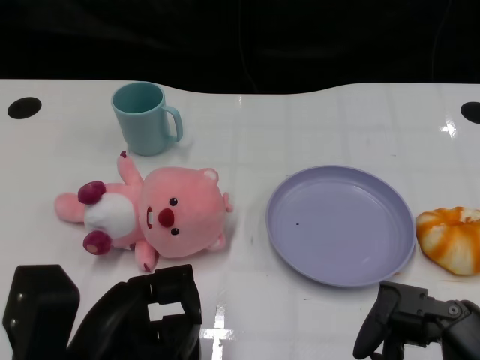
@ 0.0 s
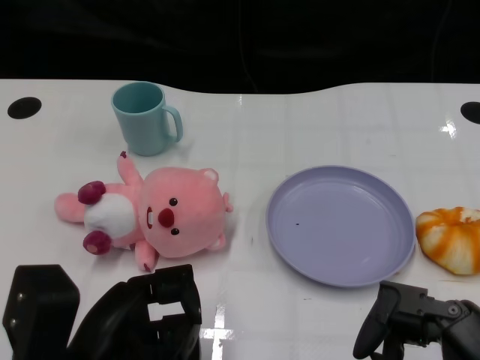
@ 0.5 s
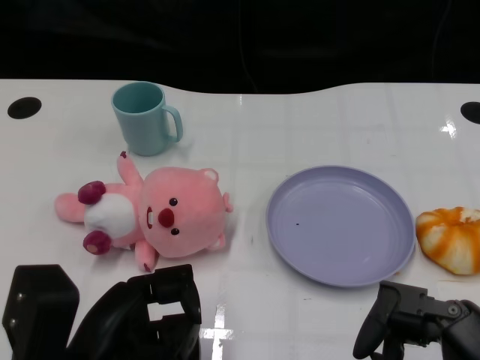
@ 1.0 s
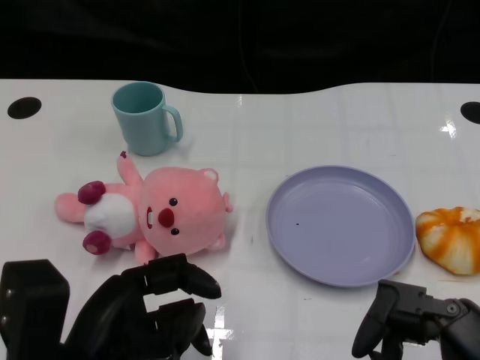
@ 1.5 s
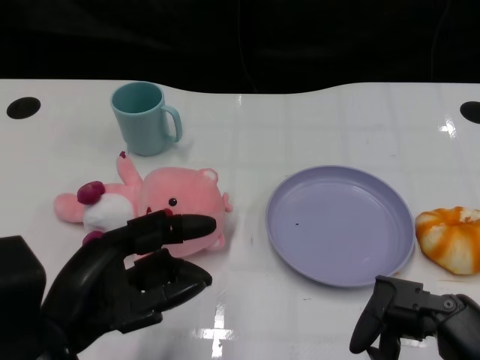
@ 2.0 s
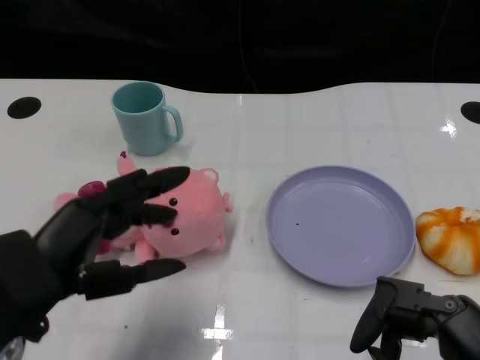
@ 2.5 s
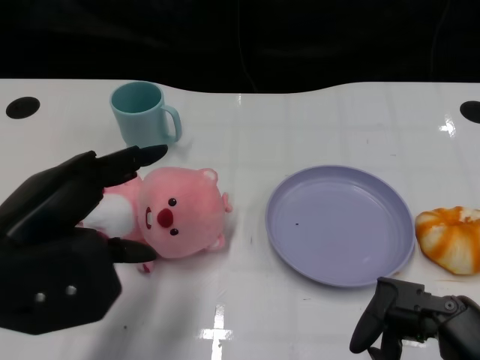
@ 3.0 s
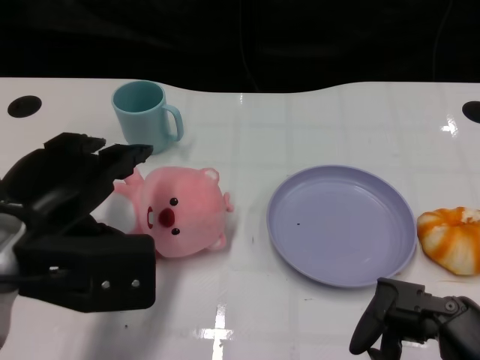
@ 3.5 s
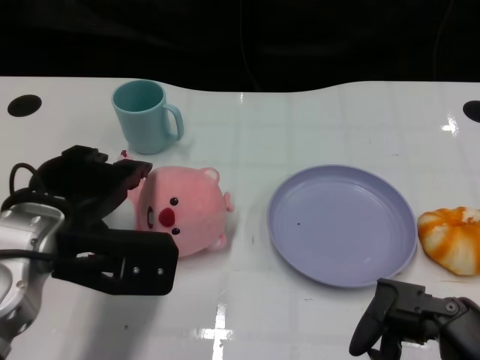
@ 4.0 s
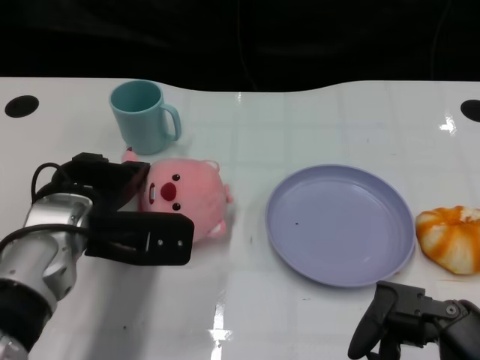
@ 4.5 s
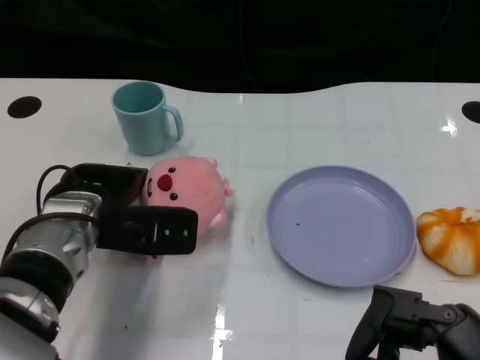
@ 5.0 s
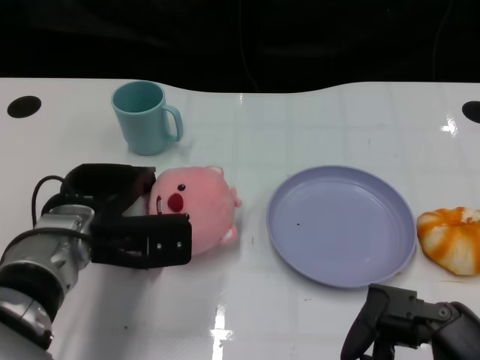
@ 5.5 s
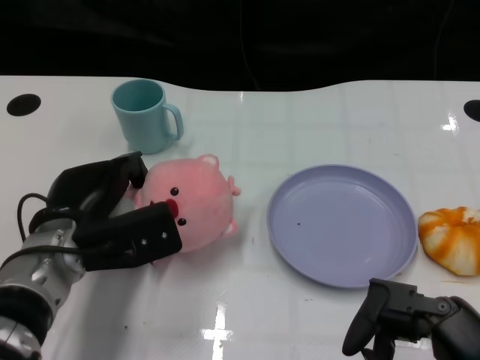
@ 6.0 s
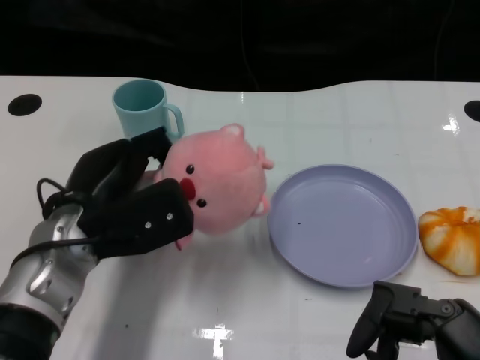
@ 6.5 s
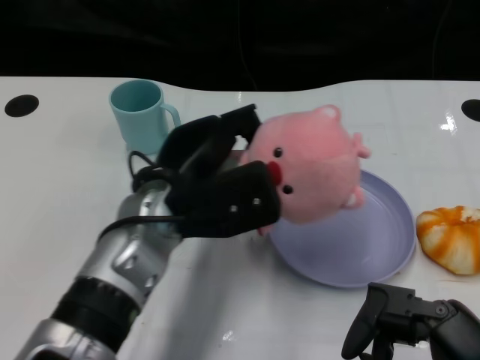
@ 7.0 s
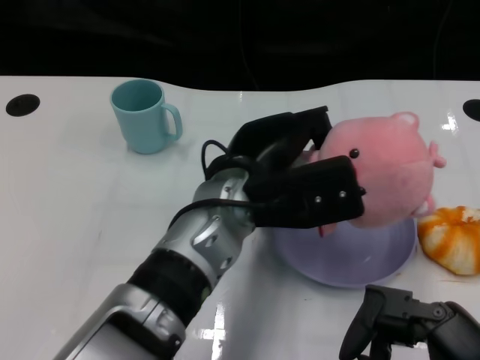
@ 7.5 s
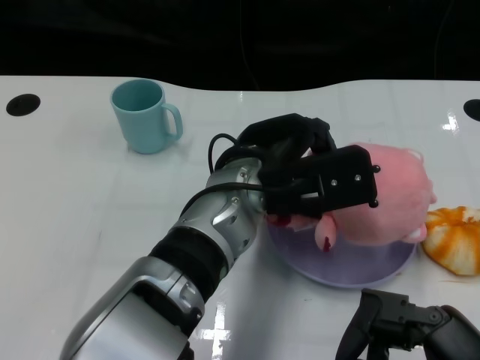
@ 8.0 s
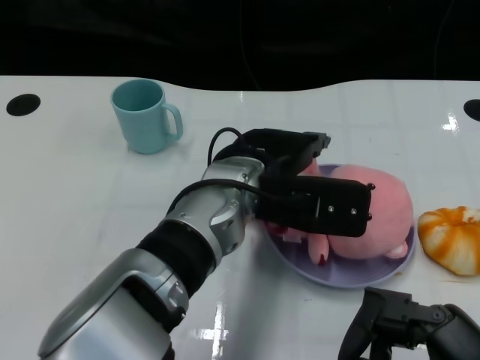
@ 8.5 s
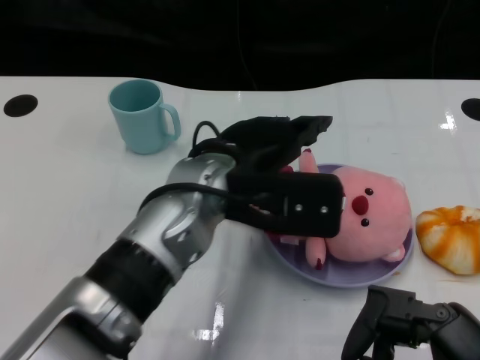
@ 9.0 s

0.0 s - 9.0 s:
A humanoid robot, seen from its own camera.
Task of the whole recording: Pick up the doll on one side of the plate and place it into the plate.
Step, 1.5 s - 5.5 s: Grasp the pink doll with the left gripper.
Step, 6.5 s - 9.0 s: Place the pink doll into the plate with the left gripper.
2.0 s - 4.5 s: The left hand moves forward, some 15 cm.
4.5 s - 7.0 s: The left hand moves to the right, approximately 10 cm.
7.0 s - 9.0 s: The left hand goes roughly 5 cm to the right.

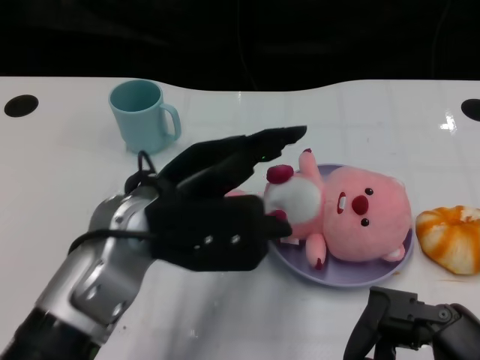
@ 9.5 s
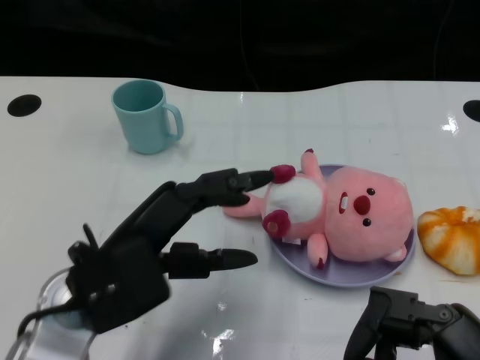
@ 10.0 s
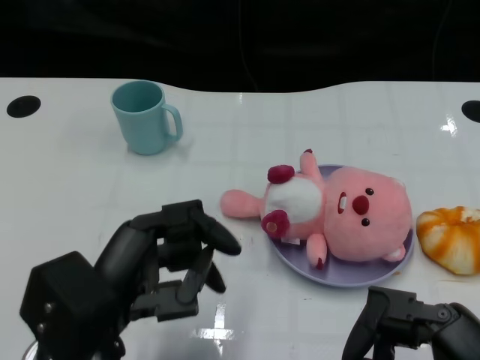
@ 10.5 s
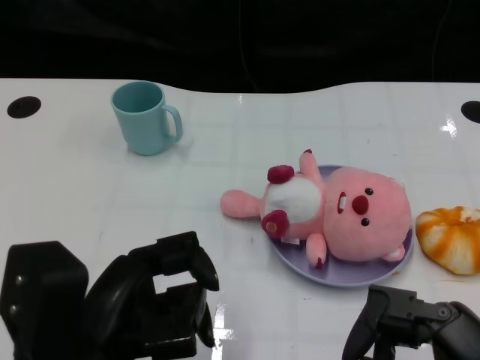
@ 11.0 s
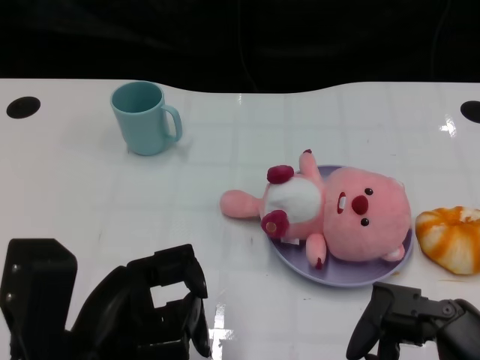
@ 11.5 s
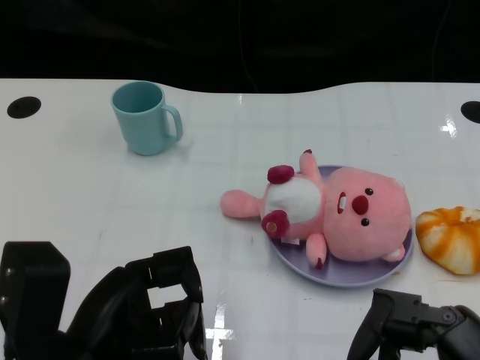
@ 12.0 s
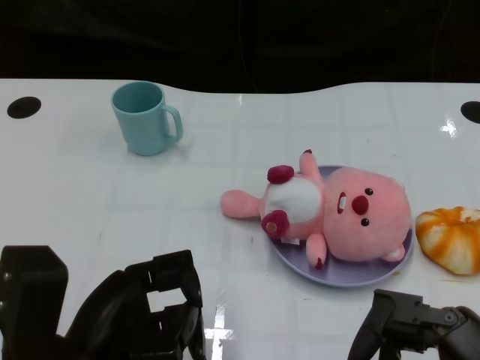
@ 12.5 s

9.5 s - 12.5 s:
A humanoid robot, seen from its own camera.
Task of the whole recording: Pick up the doll on one side of the plate and place it into the plate.
9.5 s - 11.0 s: The left hand shifts about 15 cm backward and to the left.
11.0 s - 12.5 s: The hands make only small movements.

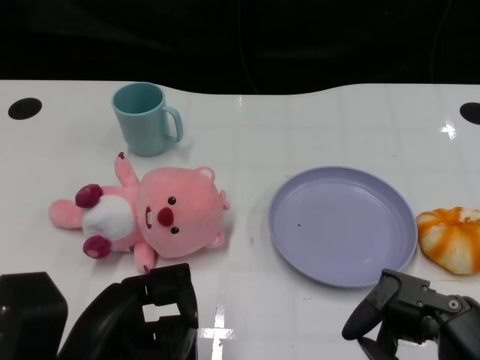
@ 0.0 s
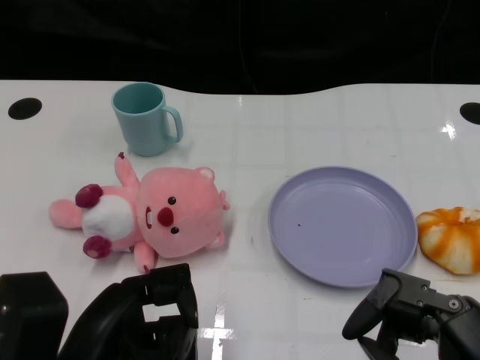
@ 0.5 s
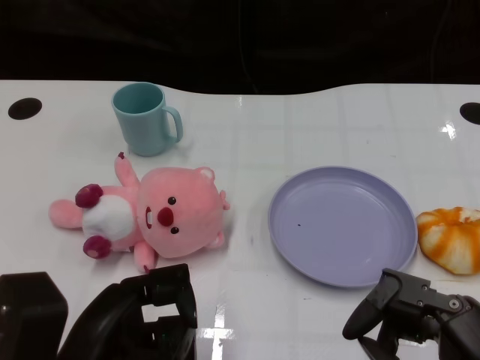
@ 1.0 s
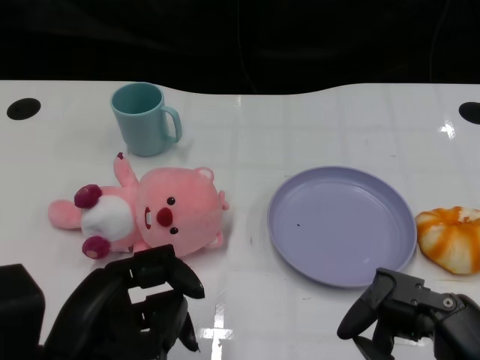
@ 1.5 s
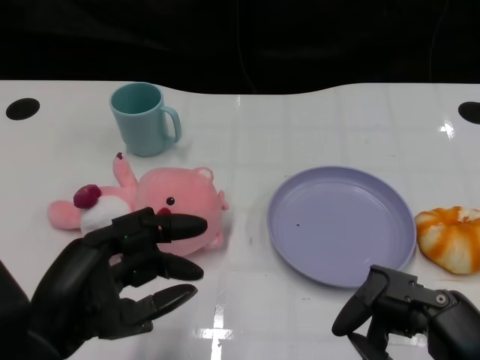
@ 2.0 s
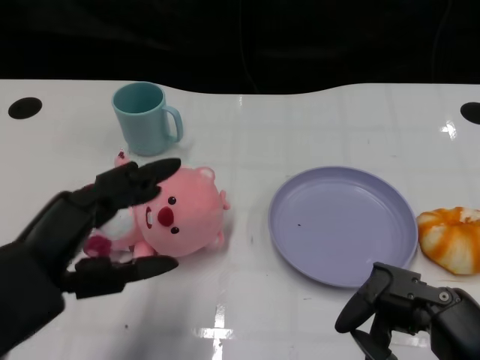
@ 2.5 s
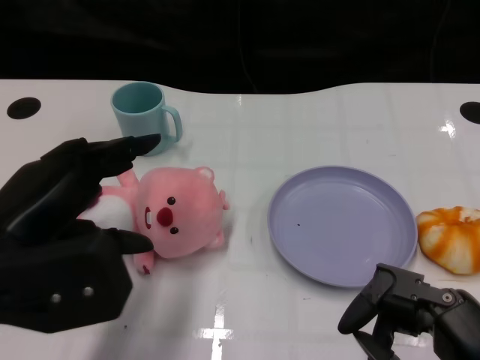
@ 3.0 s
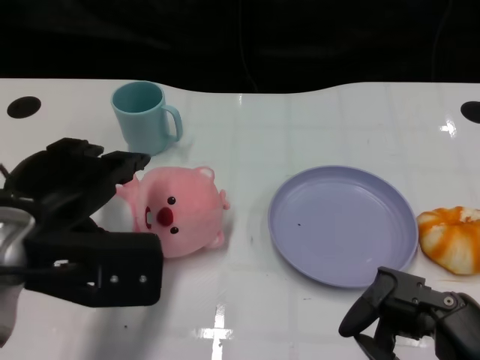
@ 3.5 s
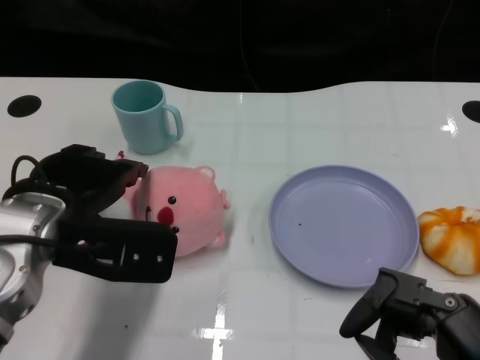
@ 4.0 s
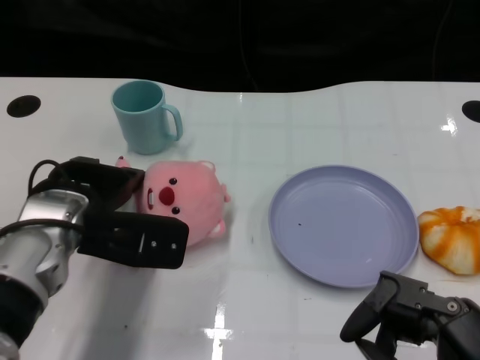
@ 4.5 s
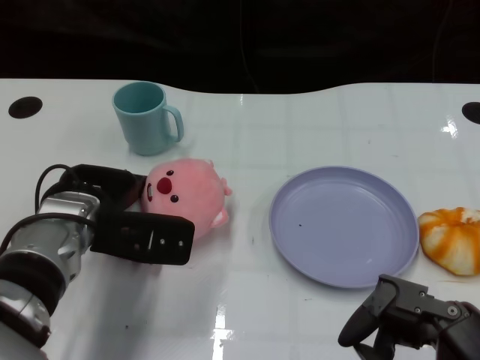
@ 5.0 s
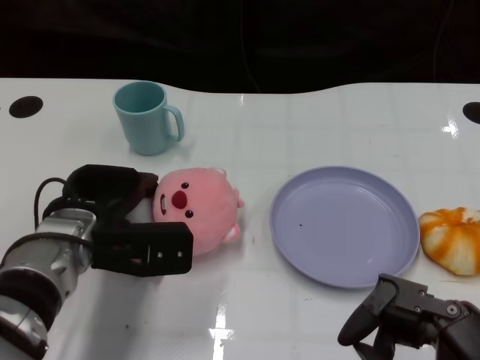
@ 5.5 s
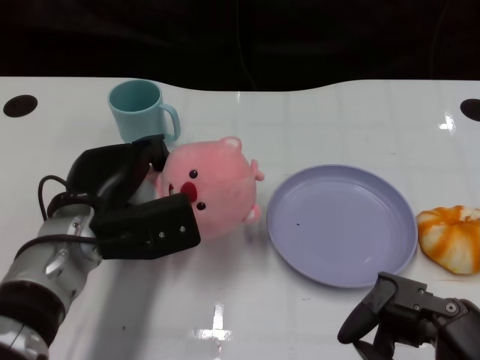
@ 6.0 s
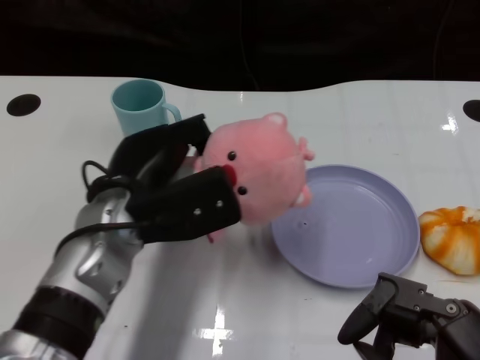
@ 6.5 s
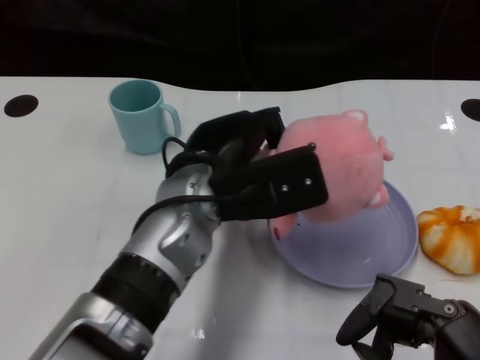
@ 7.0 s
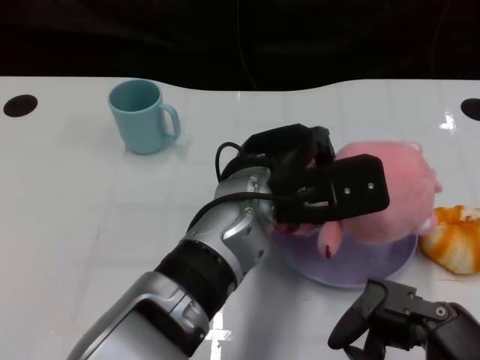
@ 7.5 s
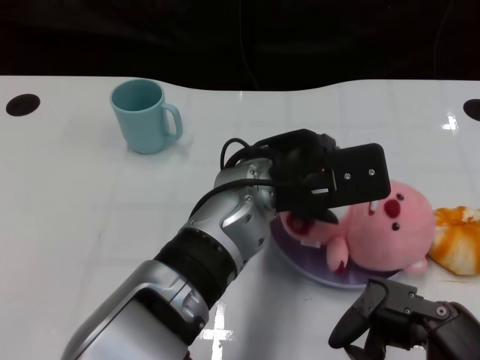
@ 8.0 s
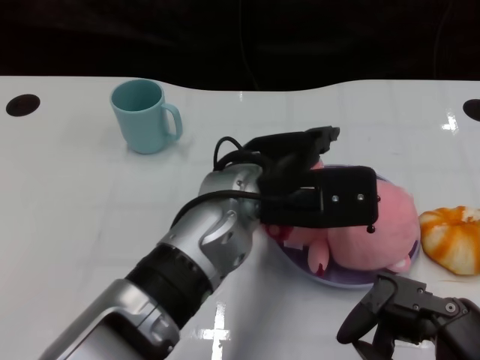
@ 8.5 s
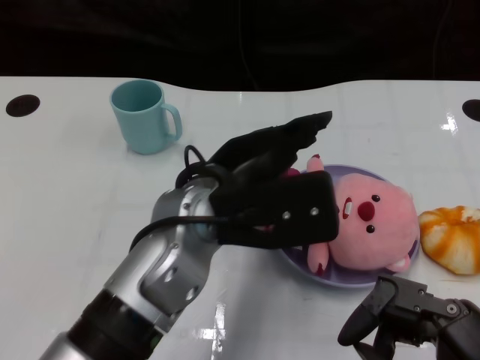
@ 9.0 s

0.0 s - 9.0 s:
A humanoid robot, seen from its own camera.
Task of the whole recording: Pick up the doll on one side of the plate and place it into the plate.
Step, 1.5 s - 5.5 s: Grasp the pink doll with the left gripper.
Step, 6.0 s - 8.5 s: Place the pink doll into the plate with the left gripper.
2.0 s - 4.5 s: The left hand is displaced forward by roughly 15 cm.
4.5 s - 7.0 s: The left hand heads to the right, covering roughly 15 cm.

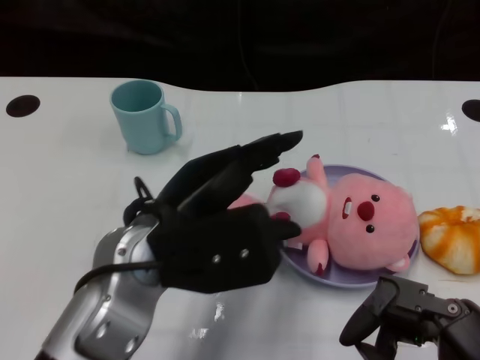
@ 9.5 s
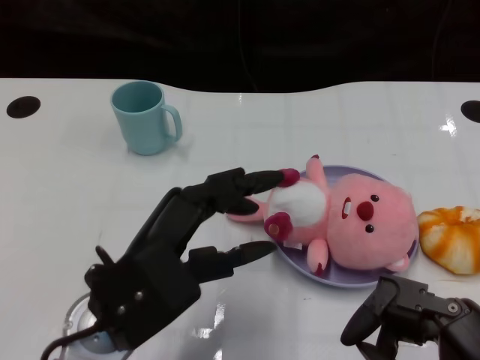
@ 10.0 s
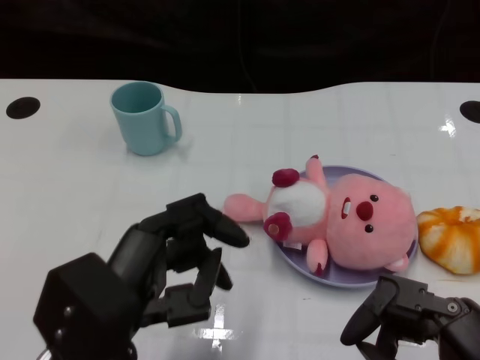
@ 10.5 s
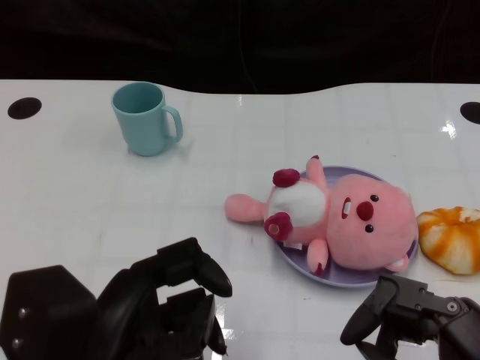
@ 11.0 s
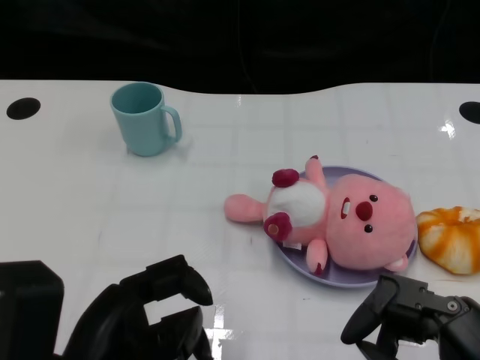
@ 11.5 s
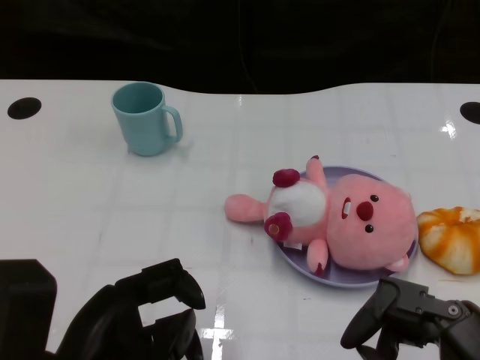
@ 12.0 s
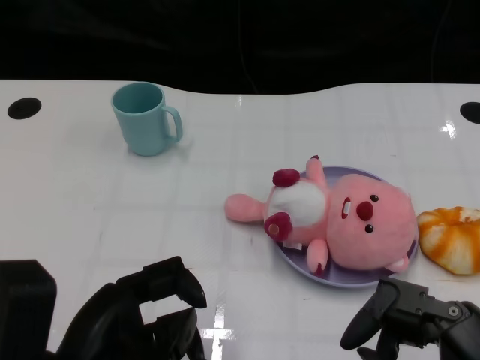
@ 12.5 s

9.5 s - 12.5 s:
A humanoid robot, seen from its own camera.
Task of the whole recording: Pick up the doll on one side of the plate and place it into the plate.
9.5 s - 11.0 s: The left hand heads backward and to the left, covering roughly 10 cm.
11.0 s - 12.5 s: The hands make only small movements.

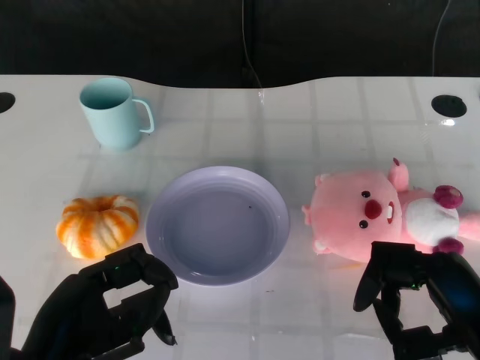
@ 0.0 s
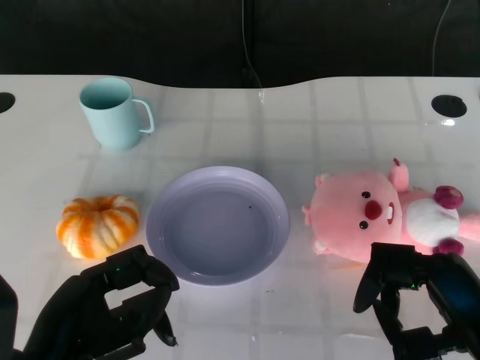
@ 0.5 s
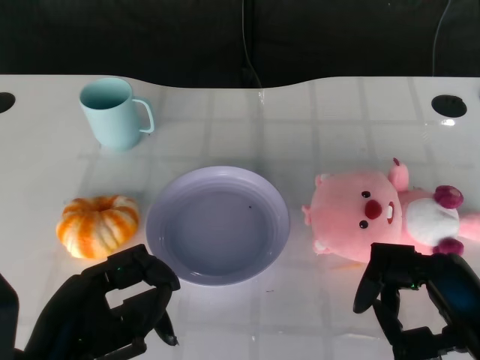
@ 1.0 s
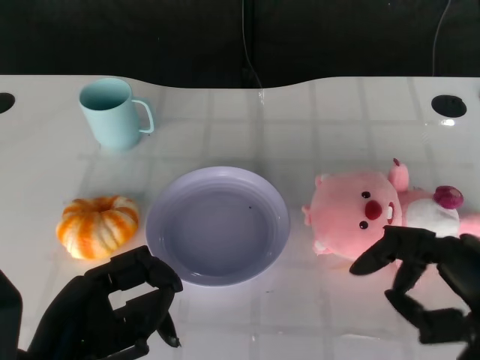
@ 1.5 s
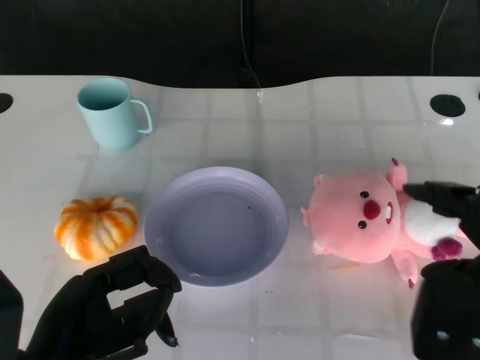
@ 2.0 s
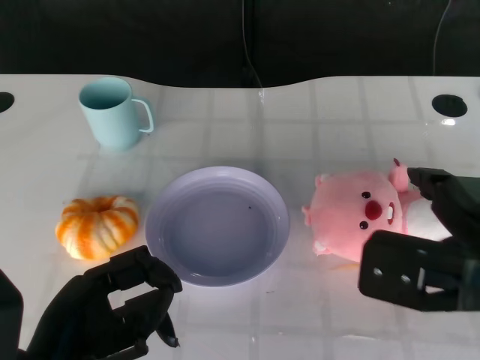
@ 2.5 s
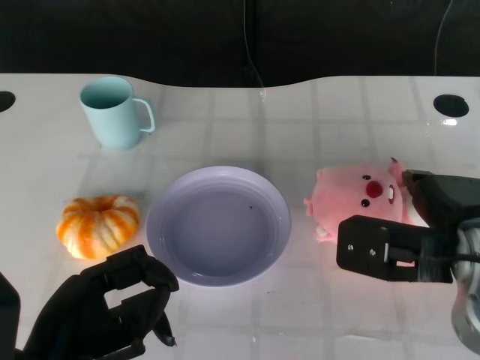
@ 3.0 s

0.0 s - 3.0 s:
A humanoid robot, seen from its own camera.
Task of the whole recording: Pick up the doll on the other side of the plate and place it into the plate.
1.5 s - 3.0 s: The right hand is displaced forward by roughly 10 cm.
